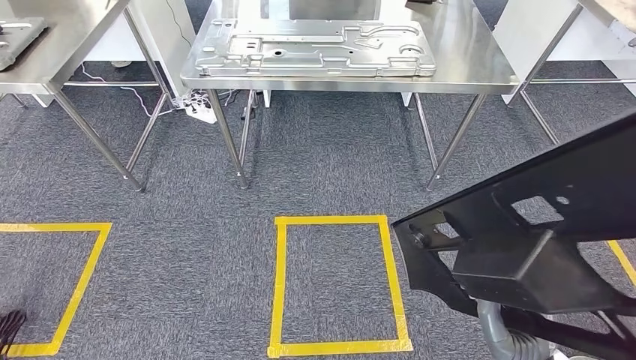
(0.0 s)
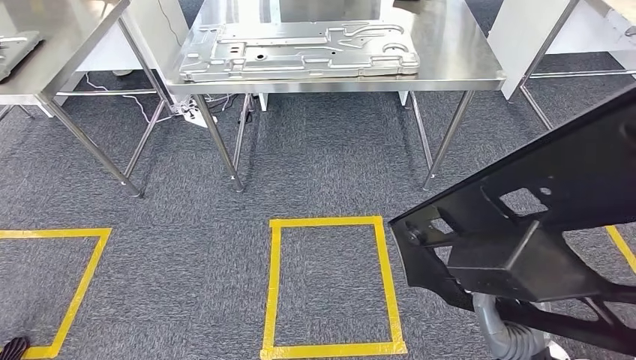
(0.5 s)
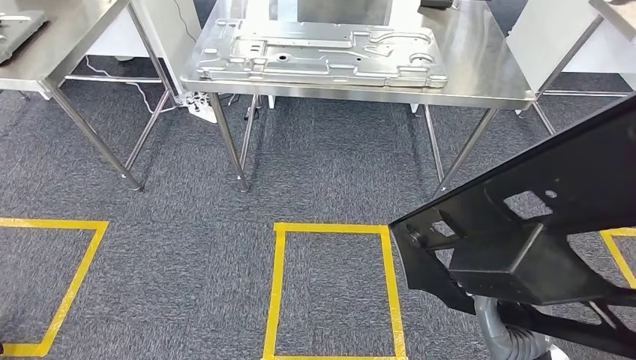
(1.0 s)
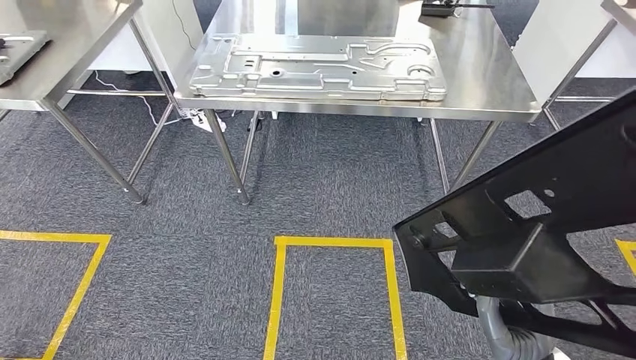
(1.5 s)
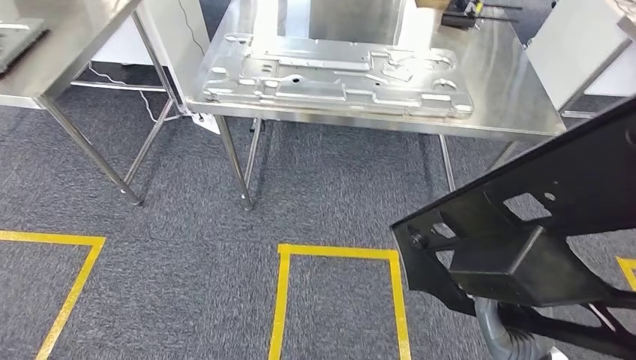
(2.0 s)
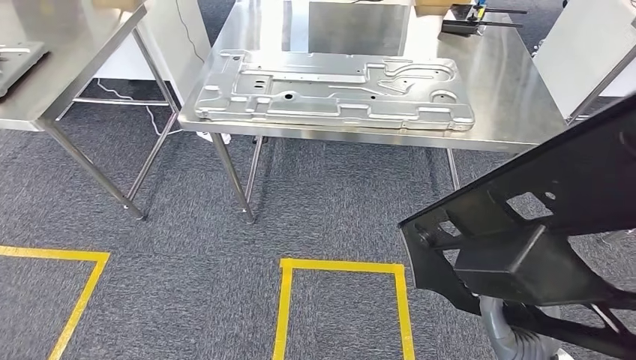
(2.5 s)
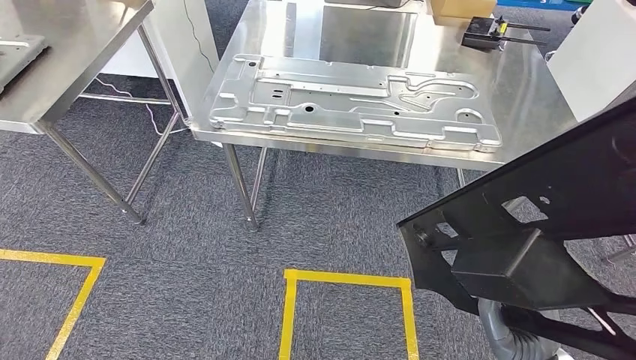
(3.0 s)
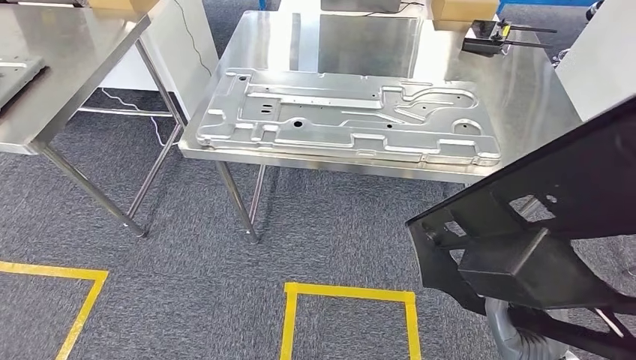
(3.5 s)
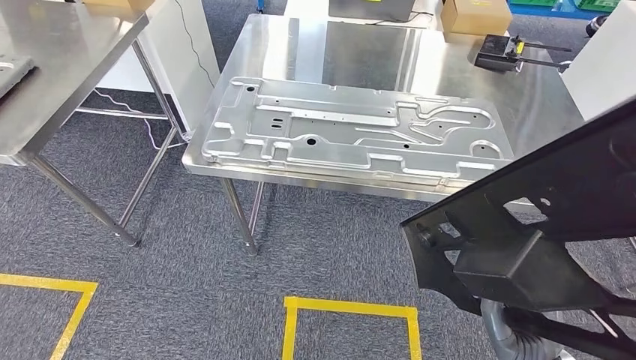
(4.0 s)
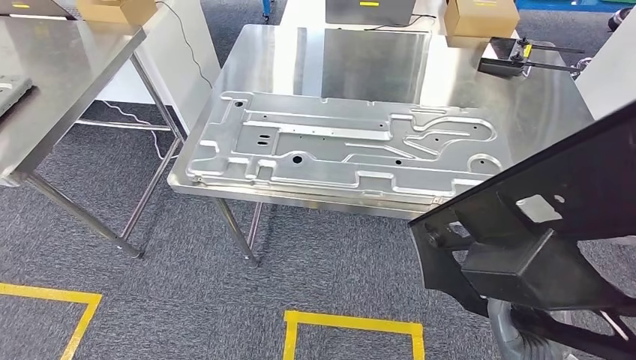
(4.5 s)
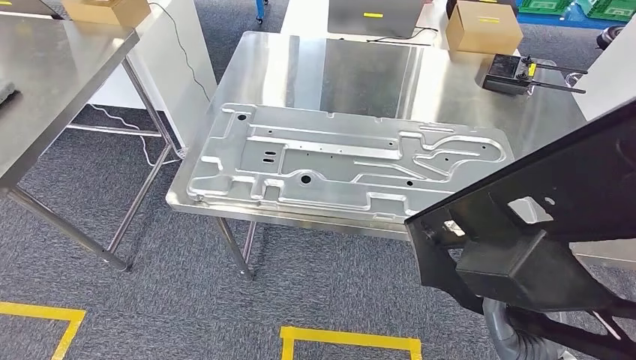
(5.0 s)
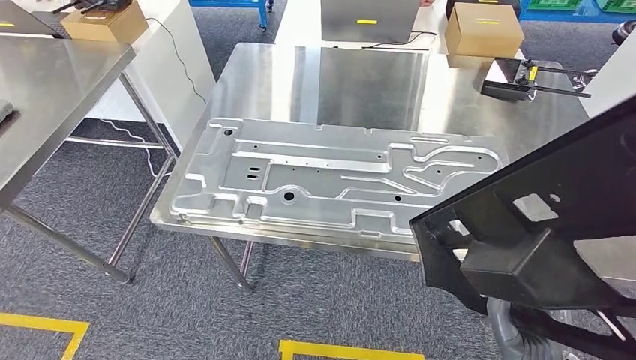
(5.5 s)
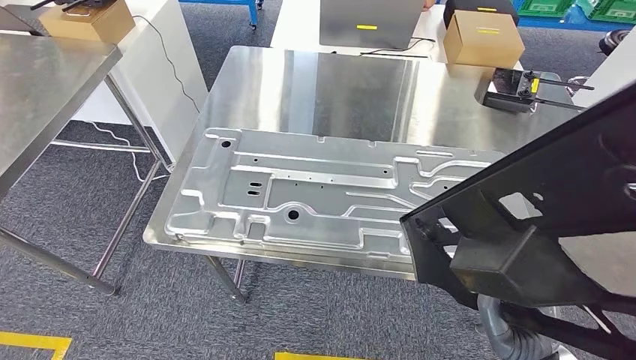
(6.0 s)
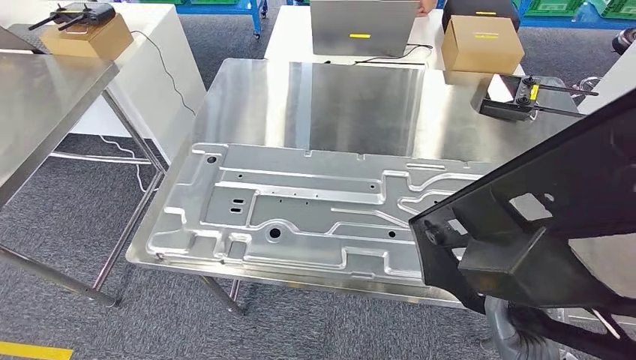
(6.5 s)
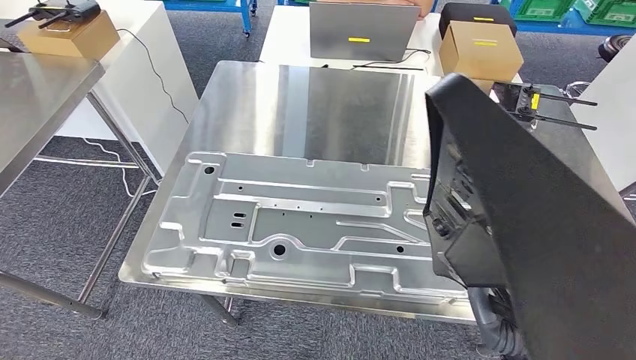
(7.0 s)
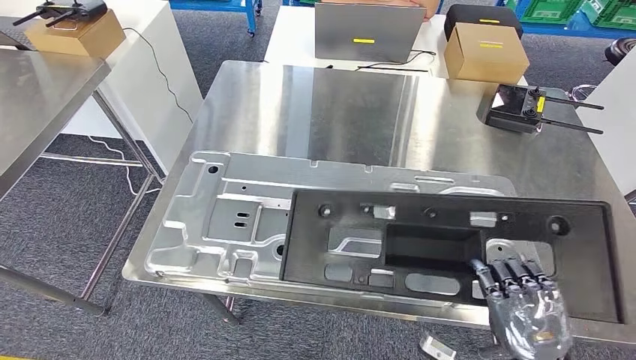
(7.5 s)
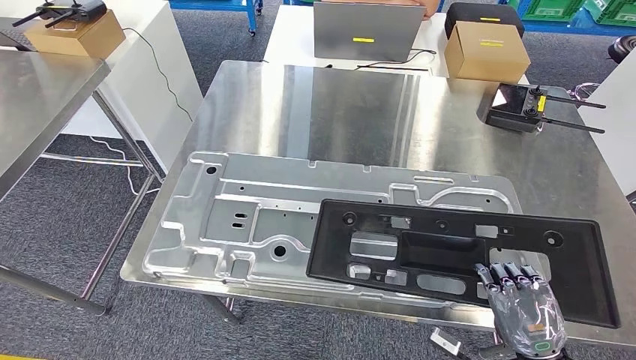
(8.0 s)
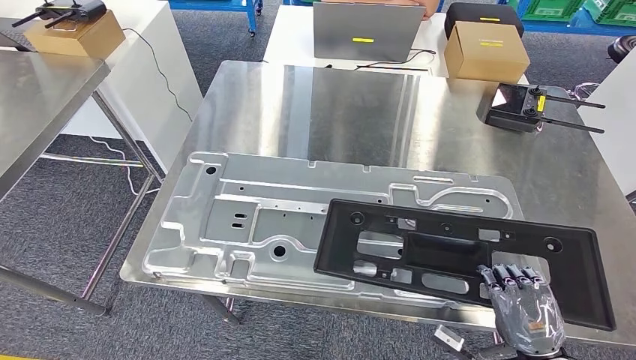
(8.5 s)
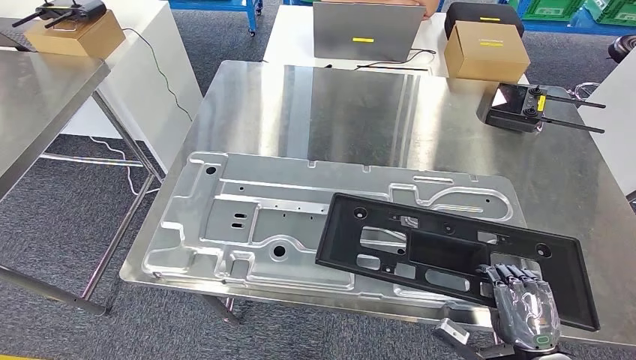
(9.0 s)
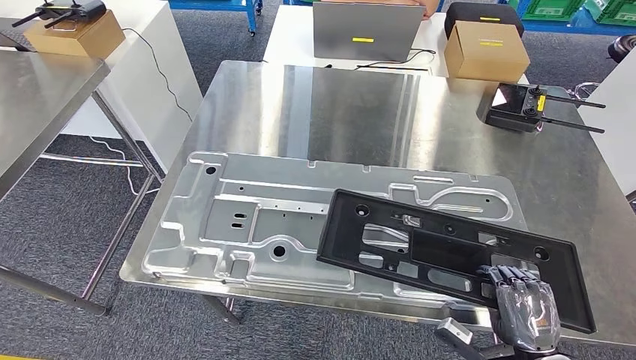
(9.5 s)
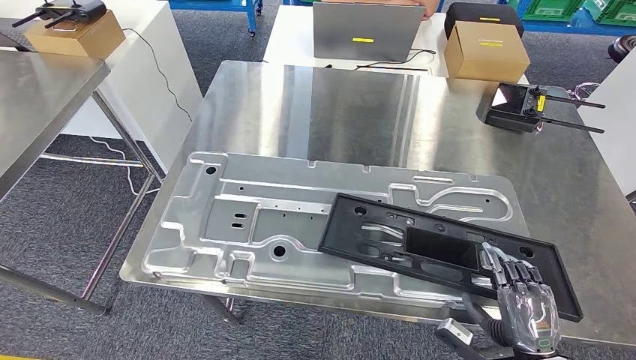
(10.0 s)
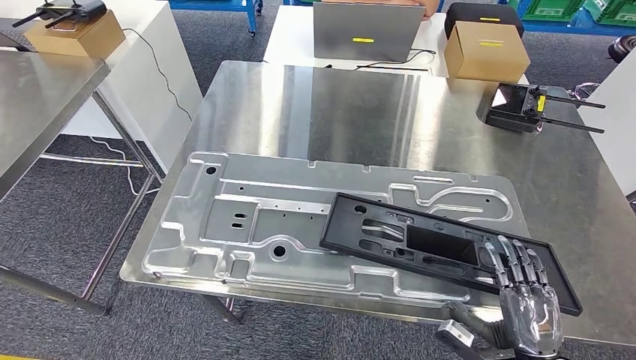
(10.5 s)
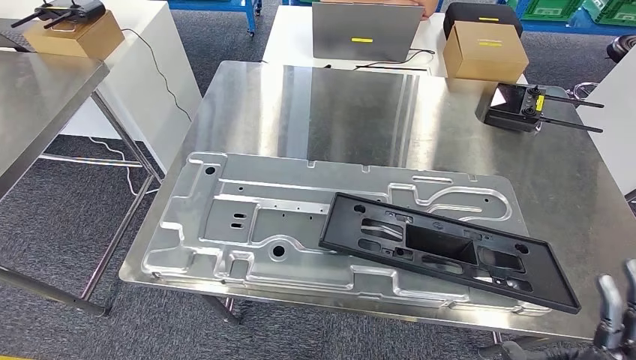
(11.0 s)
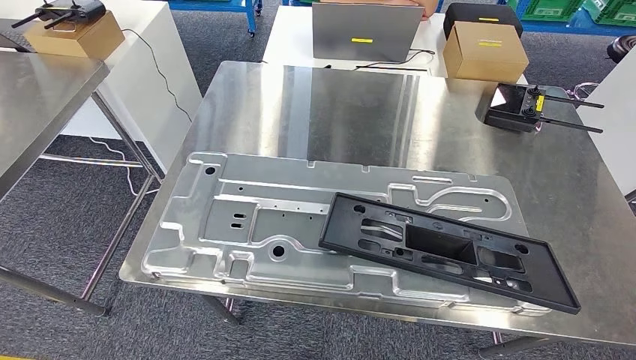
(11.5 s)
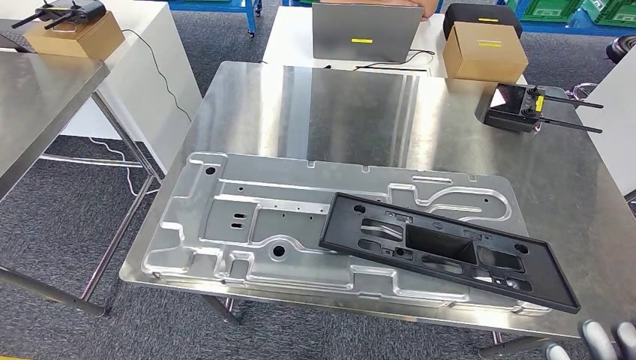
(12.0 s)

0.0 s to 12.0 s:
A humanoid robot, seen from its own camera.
Step, 0.0 to 3.5 s: Move the large material to the workbench.
Step, 4.0 to 10.5 s: Insert the large material into the corresponding slot on the workbench.
10.0 to 12.0 s: The right hand shifts roughly 15 cm upward and to the left.

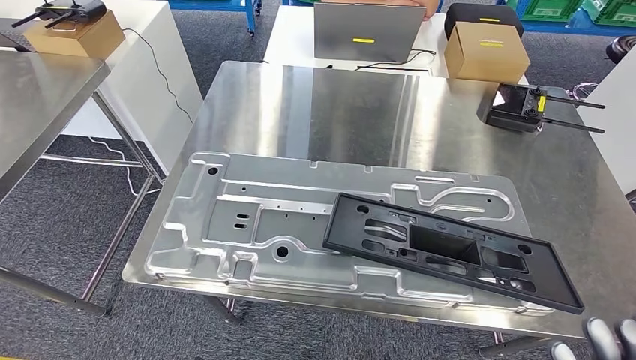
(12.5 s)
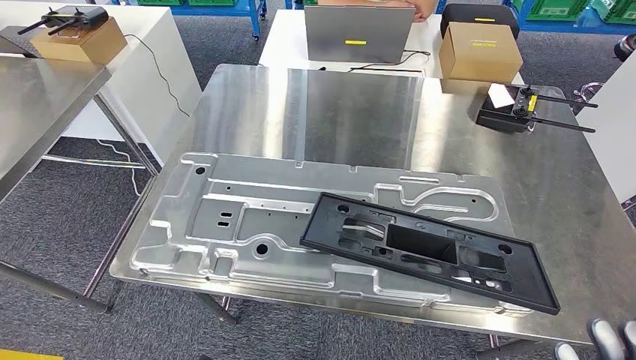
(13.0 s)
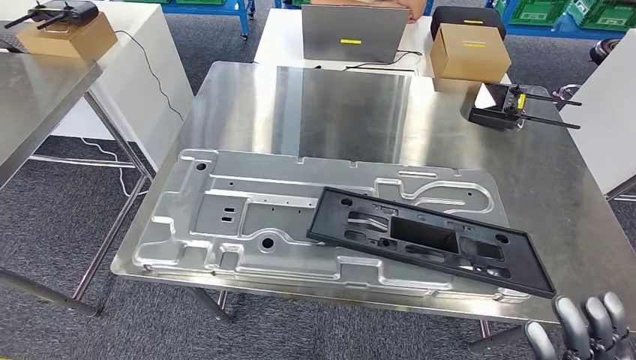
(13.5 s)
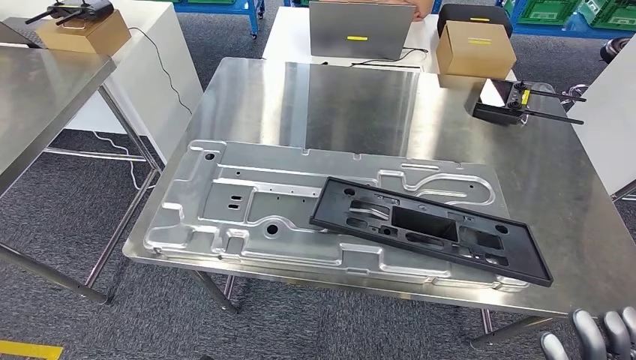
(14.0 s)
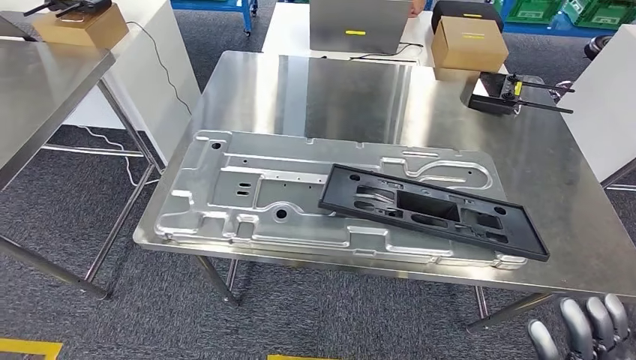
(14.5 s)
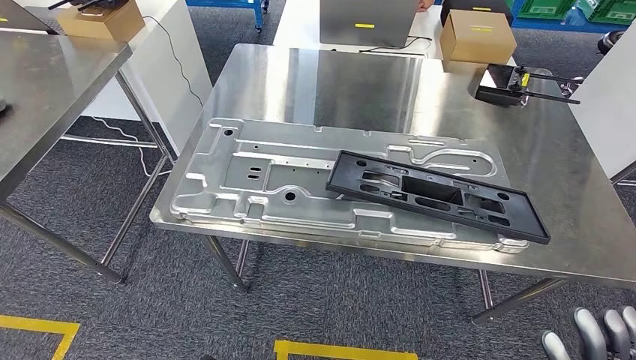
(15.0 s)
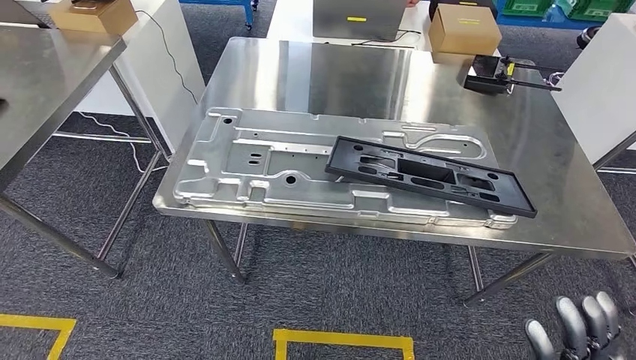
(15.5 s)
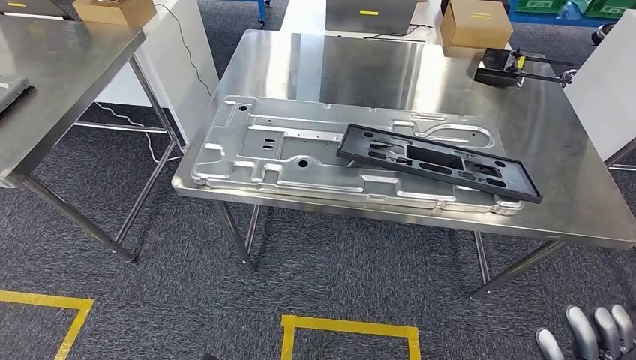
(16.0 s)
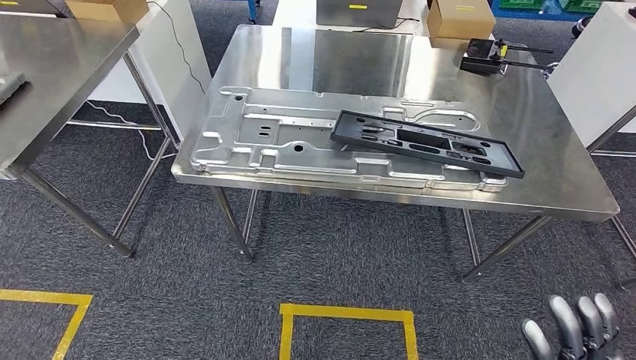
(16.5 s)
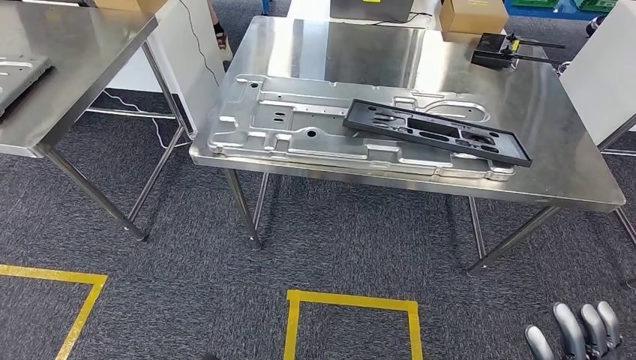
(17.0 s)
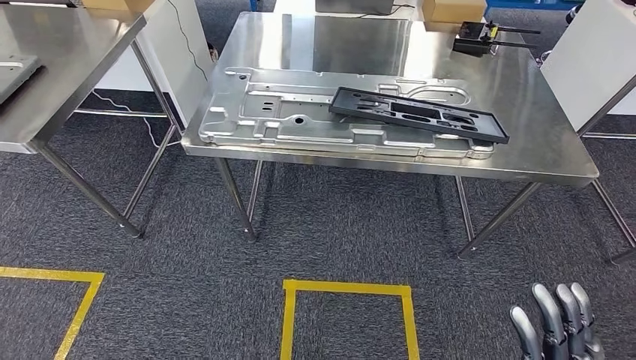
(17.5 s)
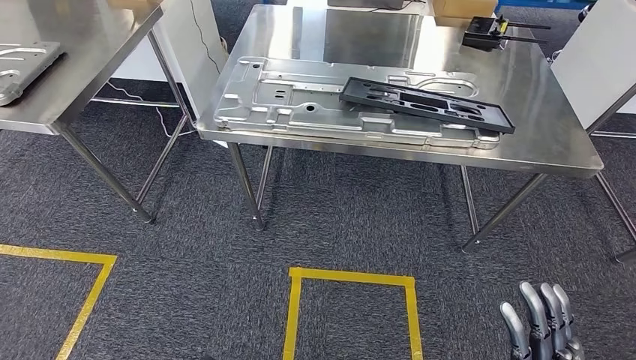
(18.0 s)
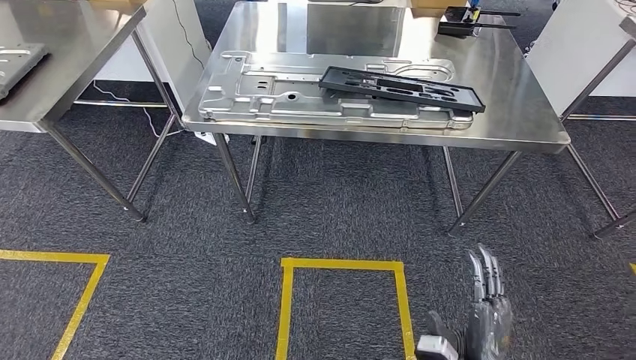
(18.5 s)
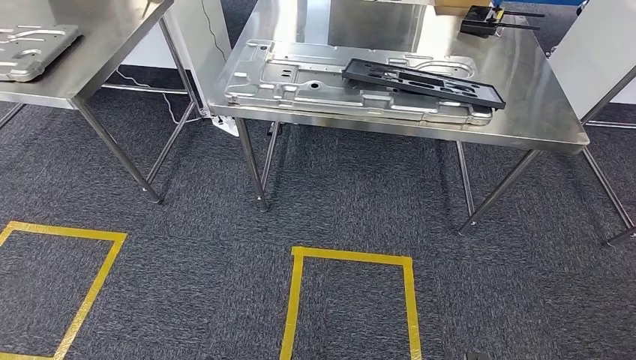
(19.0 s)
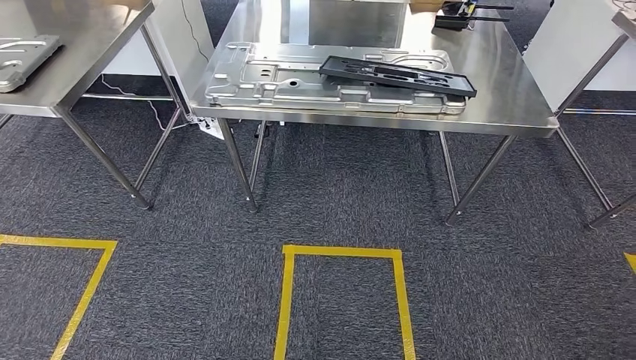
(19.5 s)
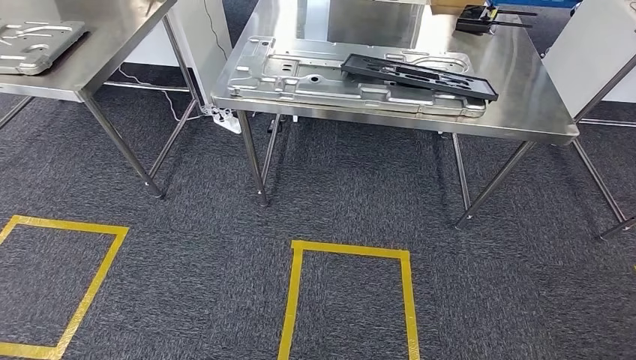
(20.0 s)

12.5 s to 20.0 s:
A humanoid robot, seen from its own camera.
Step, 12.5 to 20.0 s: Move to the initial position of the shelf.
